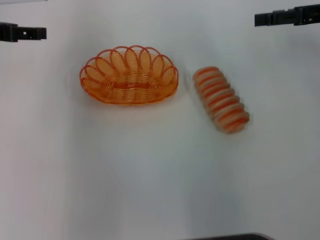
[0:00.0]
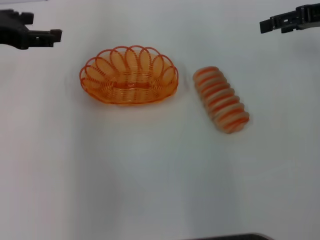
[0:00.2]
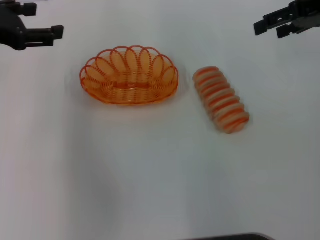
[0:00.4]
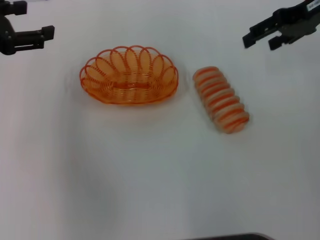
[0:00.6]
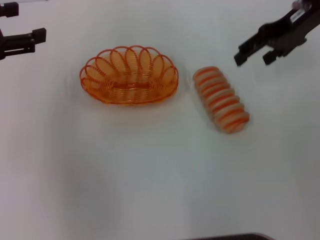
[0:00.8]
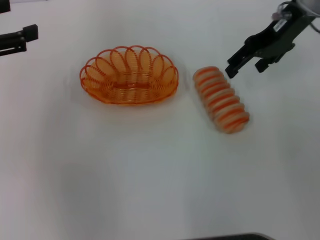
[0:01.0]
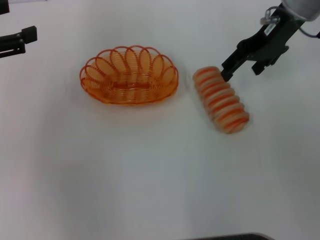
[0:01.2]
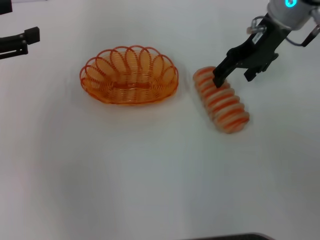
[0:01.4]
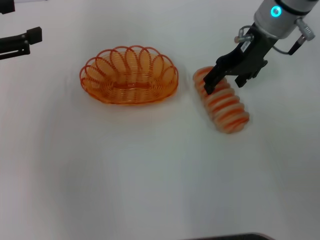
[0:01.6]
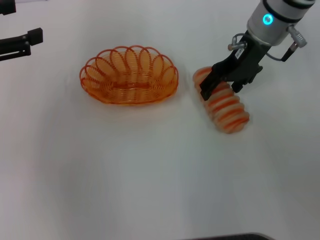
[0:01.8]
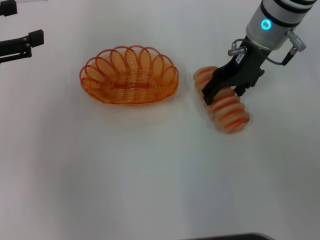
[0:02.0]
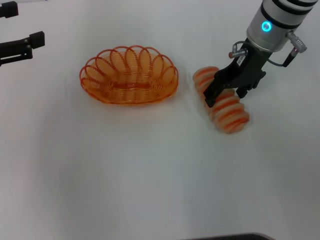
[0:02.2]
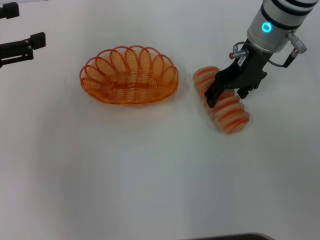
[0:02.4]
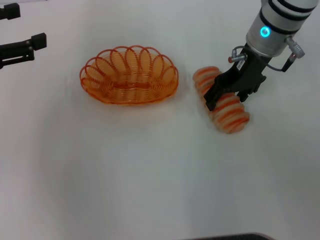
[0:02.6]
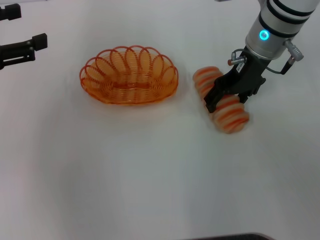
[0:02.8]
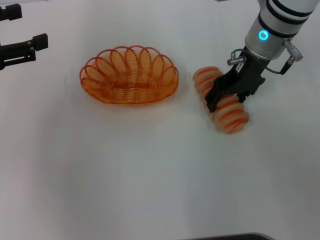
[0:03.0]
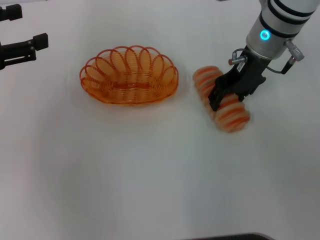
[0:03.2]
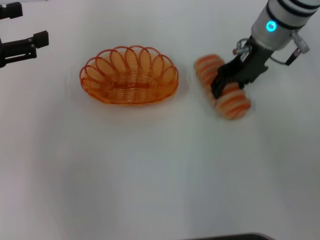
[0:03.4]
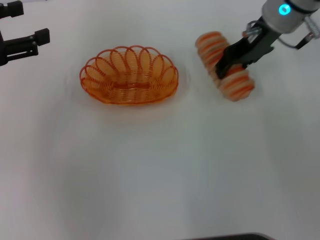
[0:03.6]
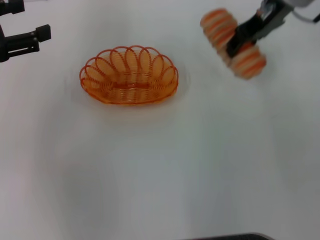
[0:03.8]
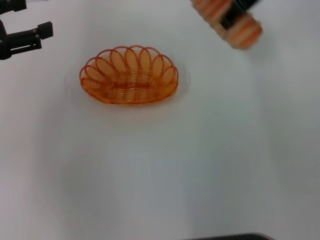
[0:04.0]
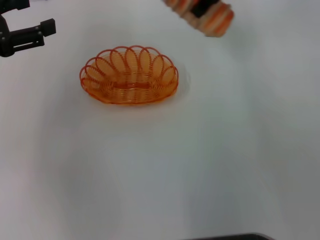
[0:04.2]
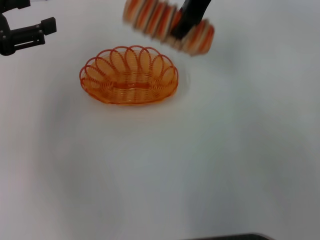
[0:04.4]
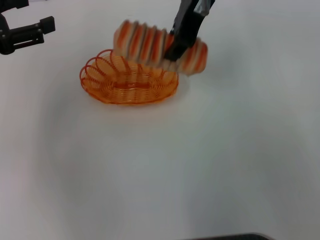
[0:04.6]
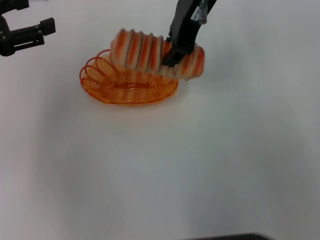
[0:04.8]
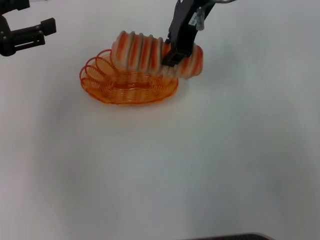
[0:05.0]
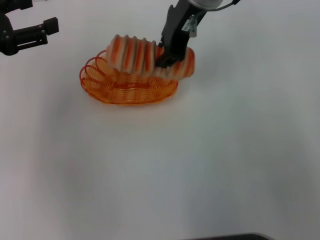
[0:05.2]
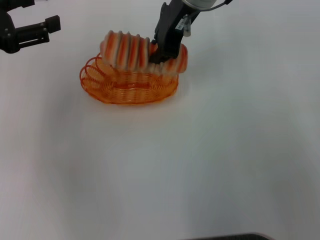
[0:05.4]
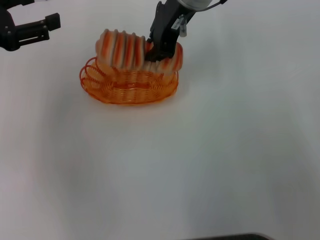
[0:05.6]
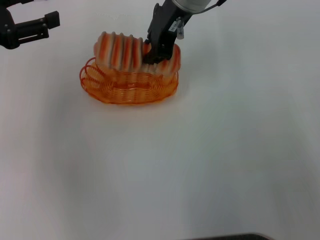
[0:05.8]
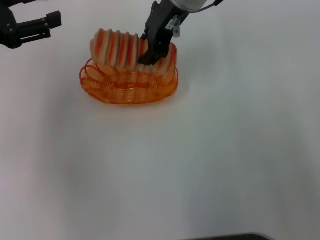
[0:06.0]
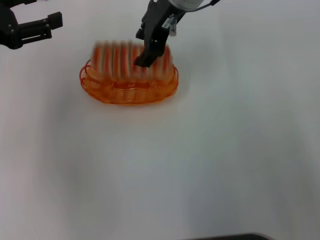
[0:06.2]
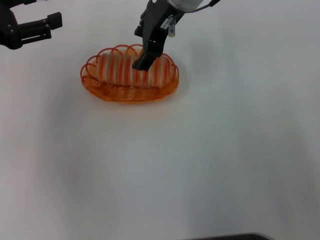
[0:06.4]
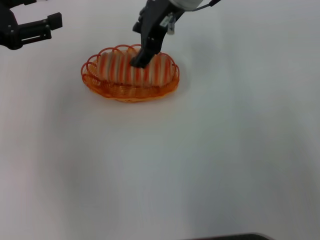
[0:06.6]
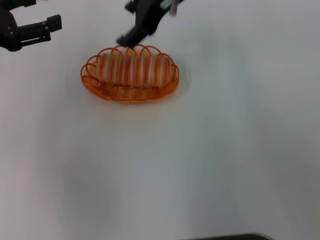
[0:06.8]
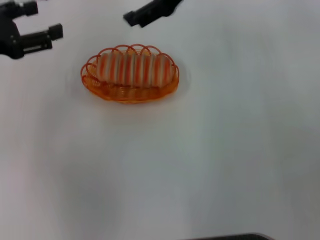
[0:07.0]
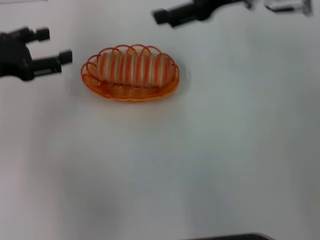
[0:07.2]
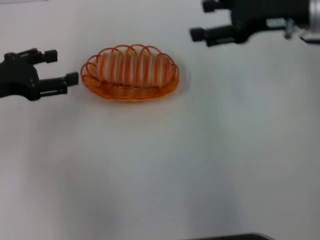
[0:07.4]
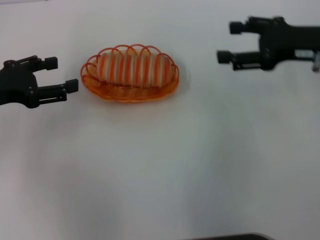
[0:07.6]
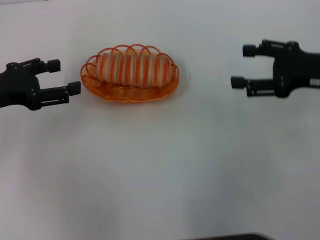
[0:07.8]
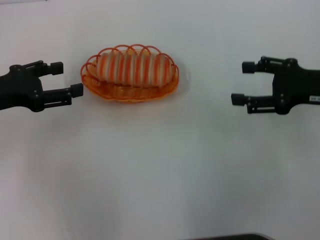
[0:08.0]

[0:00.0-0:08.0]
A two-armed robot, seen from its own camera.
Step, 0:00.0 to 0:03.2: Pick up the long bread with the right gripper.
Step, 0:03.4 to 0:06.2: Place the long bread into the basket with the right gripper.
0:00.0 to 0:01.6: The left gripper travels backward by about 10 cm, while the right gripper is displaced to the left by about 15 cm.
0:01.6 to 0:03.2: The grippers make only small movements.
0:03.2 to 0:04.8: The right gripper goes approximately 15 cm upward and to the left, and closes.
0:04.8 to 0:06.4: The right gripper opens its fingers.
0:06.4 to 0:08.0: The right gripper moves to the right, backward and downward, roughly 30 cm, and opens up; the left gripper travels downward by approximately 5 cm.
